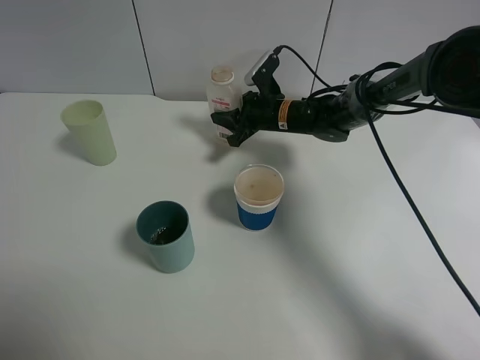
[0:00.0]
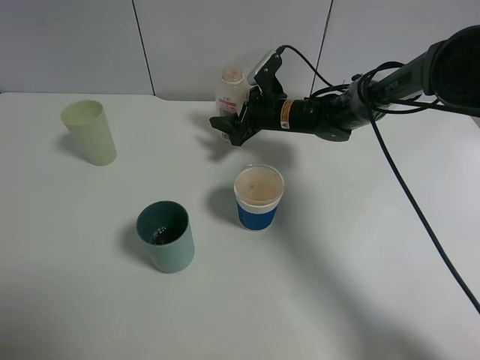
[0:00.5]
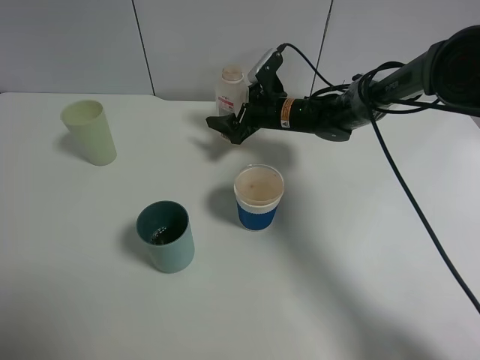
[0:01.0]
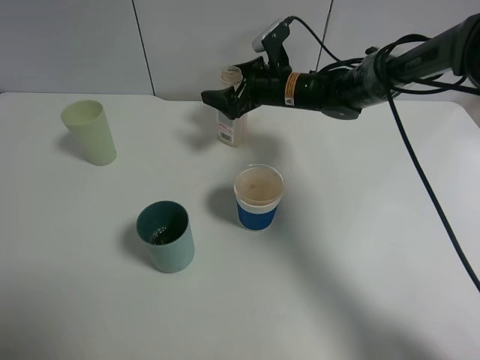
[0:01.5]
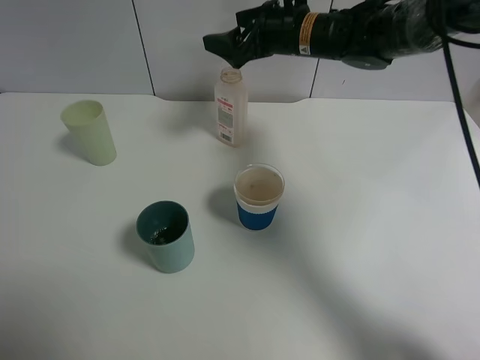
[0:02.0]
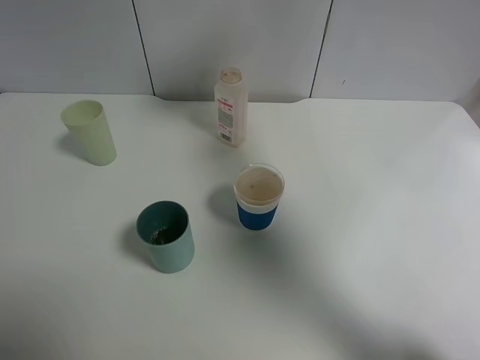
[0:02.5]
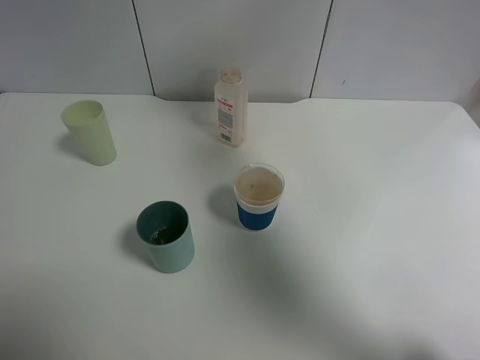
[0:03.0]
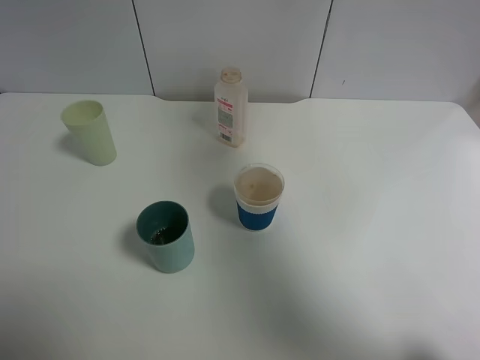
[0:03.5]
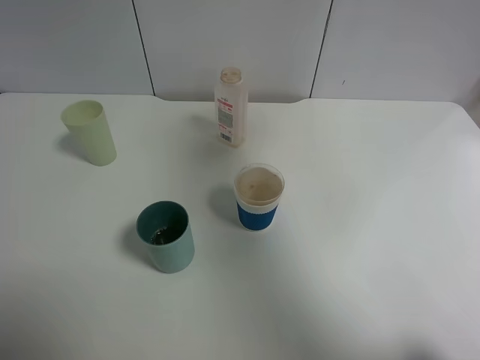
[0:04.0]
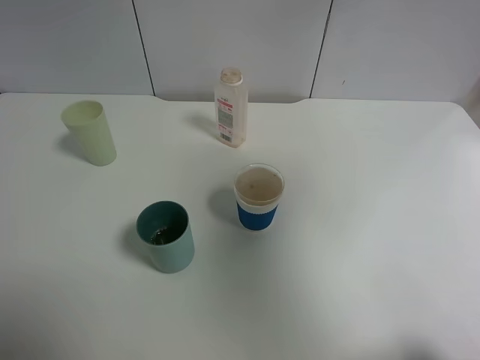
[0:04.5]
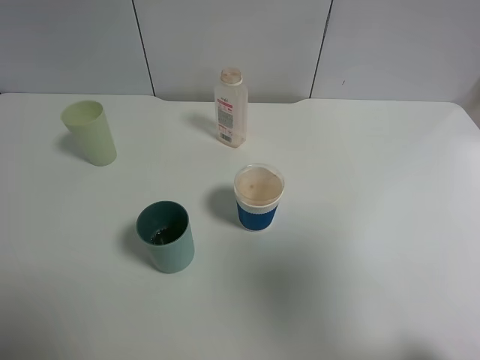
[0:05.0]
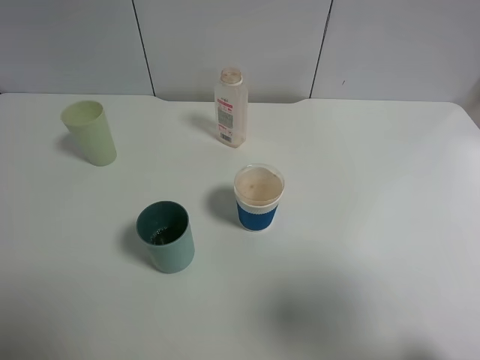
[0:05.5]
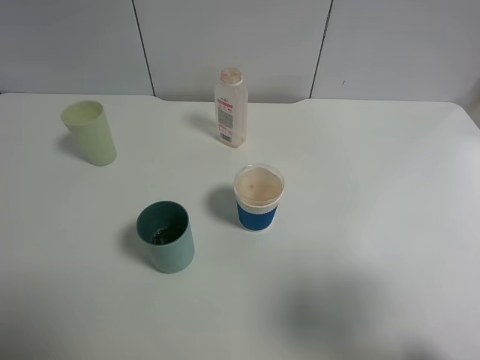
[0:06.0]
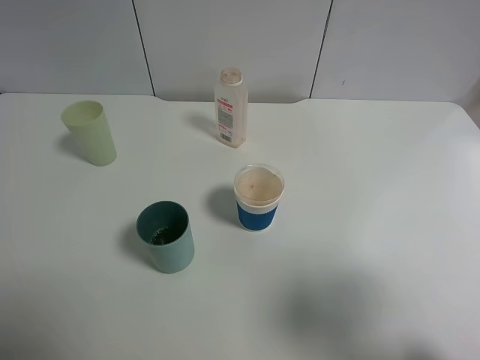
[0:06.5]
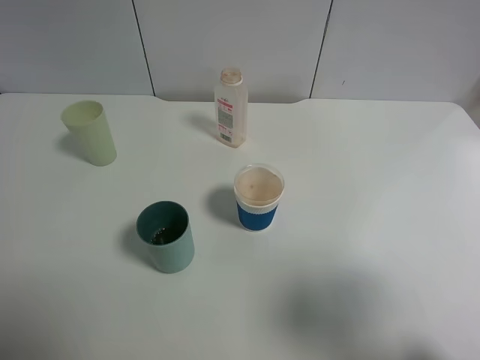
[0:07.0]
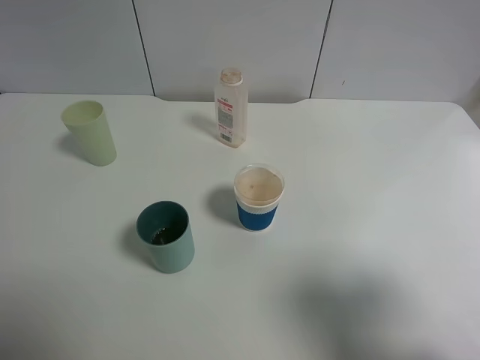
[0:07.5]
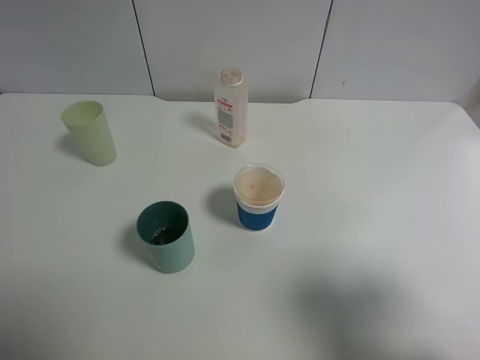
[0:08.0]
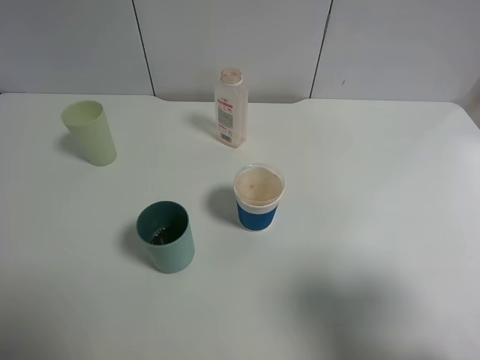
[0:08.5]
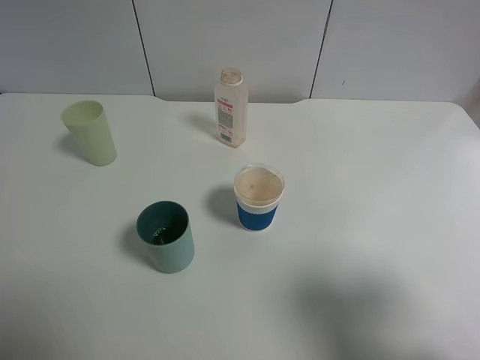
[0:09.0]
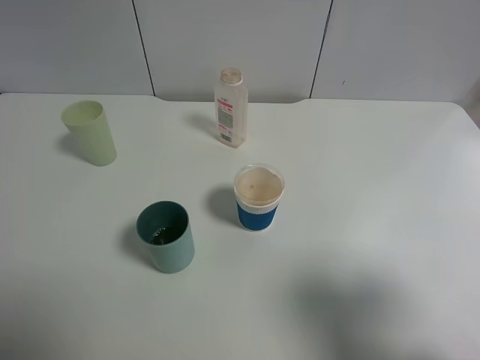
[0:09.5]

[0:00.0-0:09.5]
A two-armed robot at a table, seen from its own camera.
Task of the whole recording: use a gripper to hold the bottle of the drink and pour it into a random cup.
0:00.0 to 0:02.0: The right gripper travels upward by some 15 cm, and opens its fingers.
0:02.0 to 0:04.0: The right gripper goes some 35 cm upward, backward and to the right.
0:04.0 to 0:05.5: The right gripper goes some 30 cm backward and downward.
0:07.5 to 0:09.5: Both grippers stay about where they are.

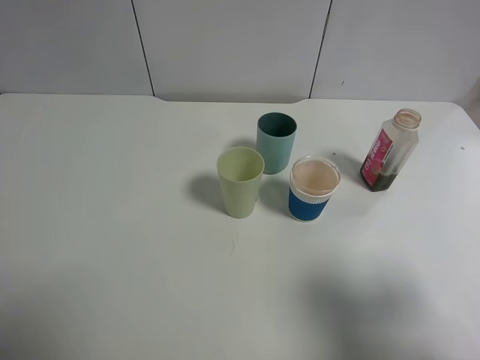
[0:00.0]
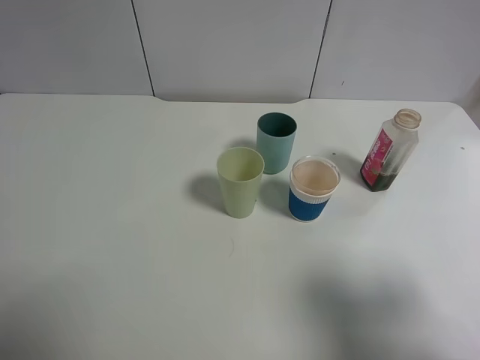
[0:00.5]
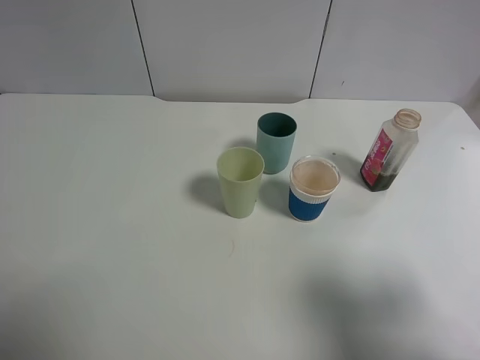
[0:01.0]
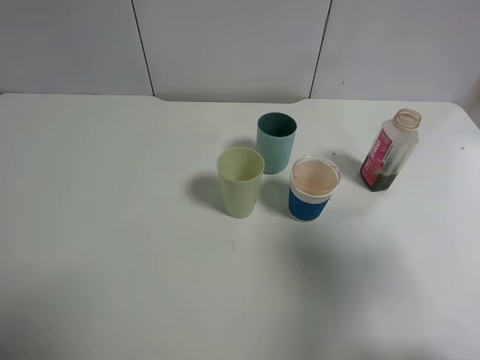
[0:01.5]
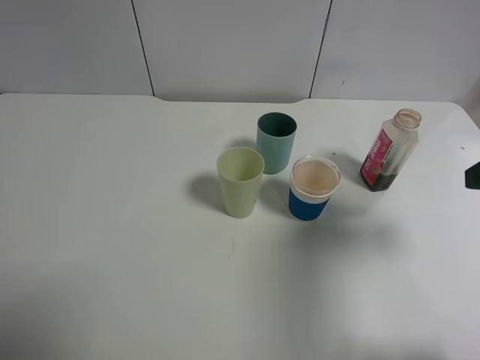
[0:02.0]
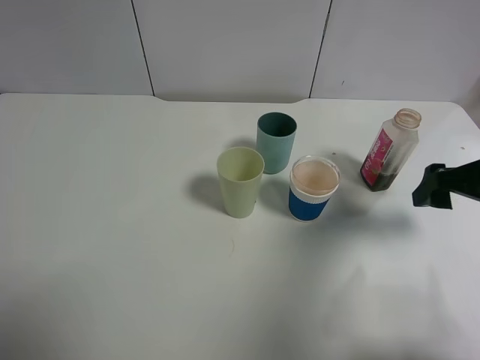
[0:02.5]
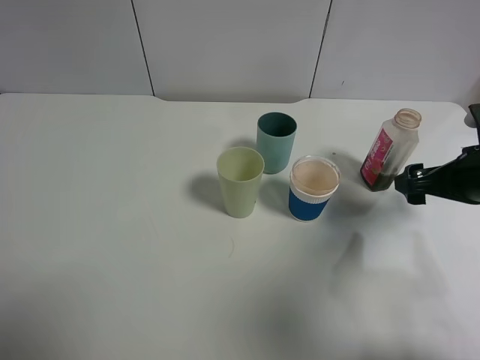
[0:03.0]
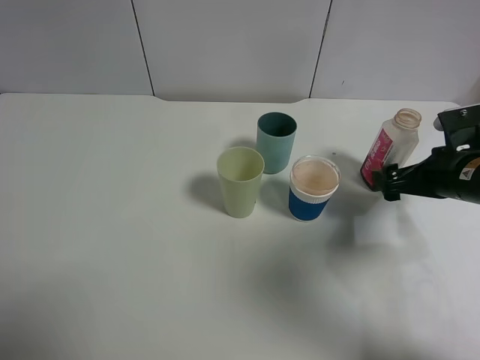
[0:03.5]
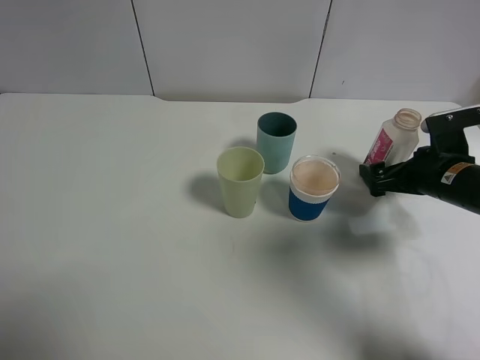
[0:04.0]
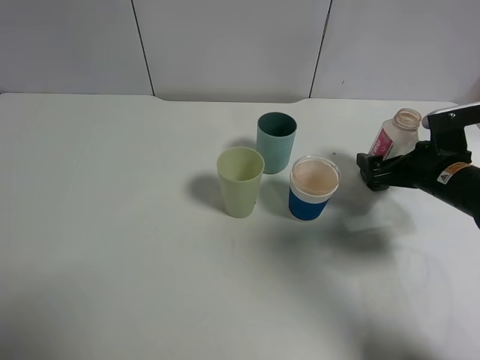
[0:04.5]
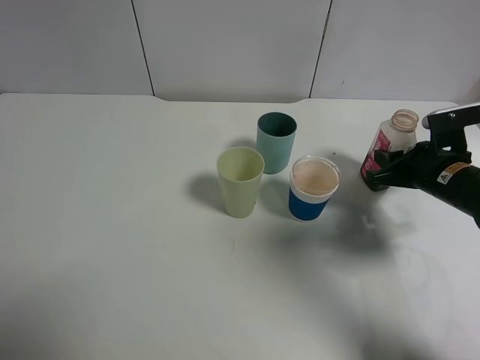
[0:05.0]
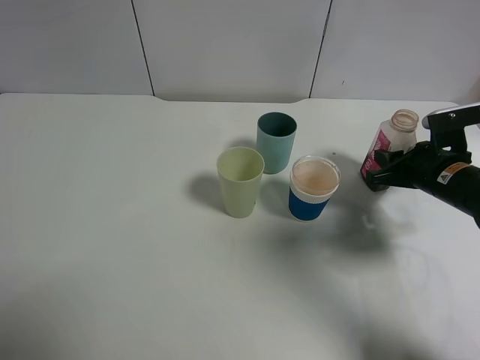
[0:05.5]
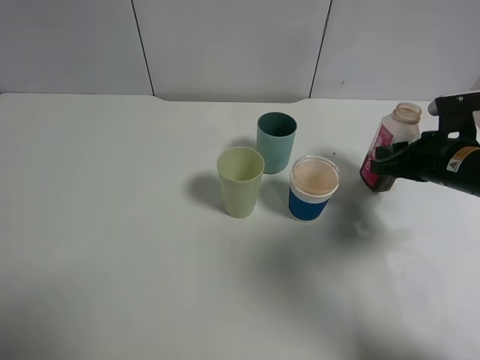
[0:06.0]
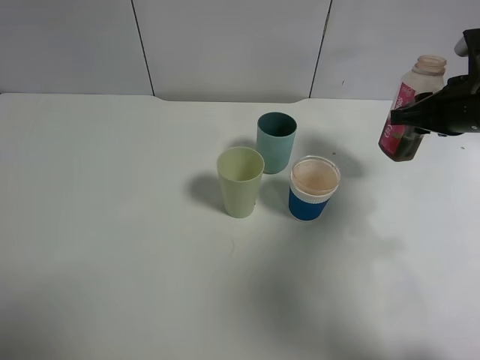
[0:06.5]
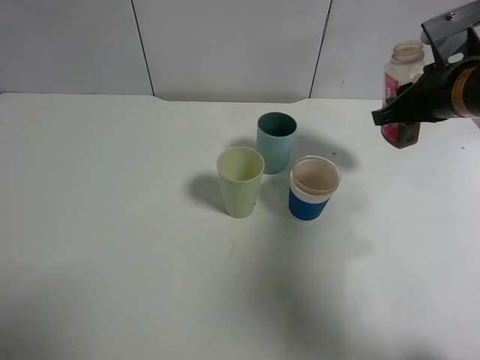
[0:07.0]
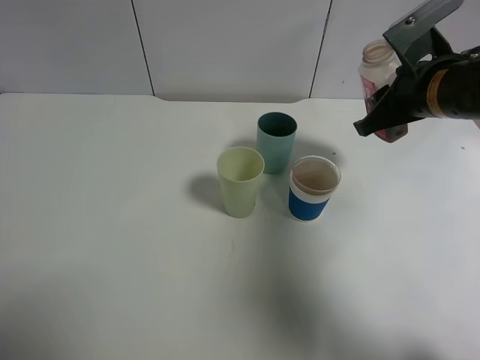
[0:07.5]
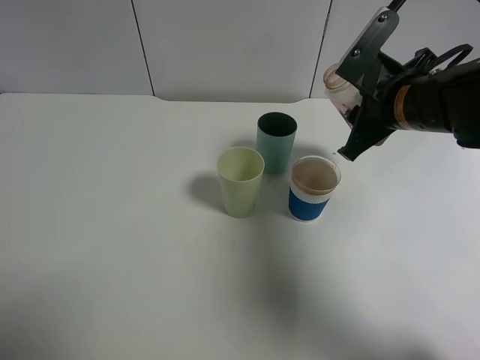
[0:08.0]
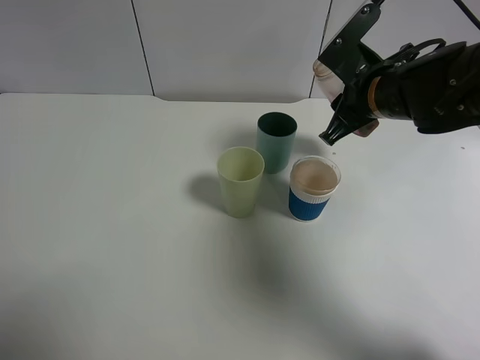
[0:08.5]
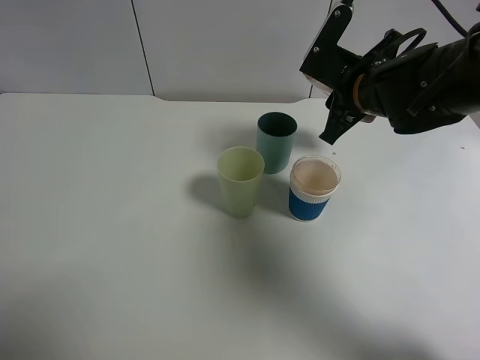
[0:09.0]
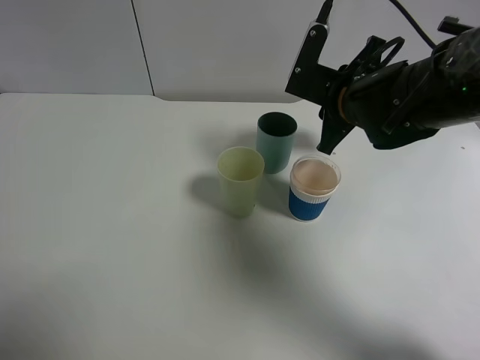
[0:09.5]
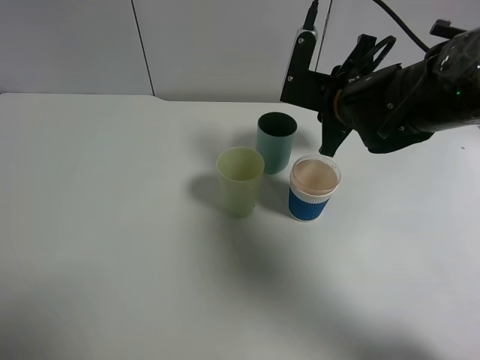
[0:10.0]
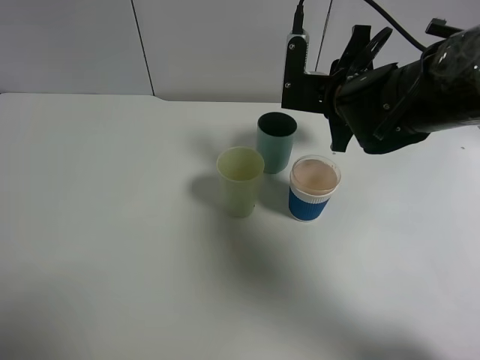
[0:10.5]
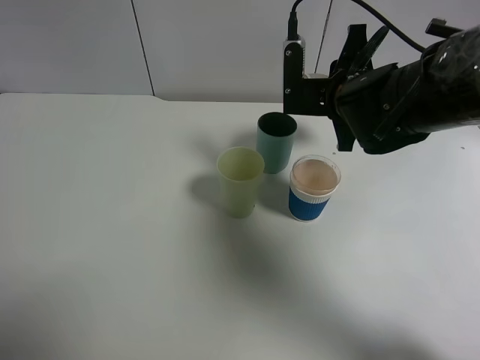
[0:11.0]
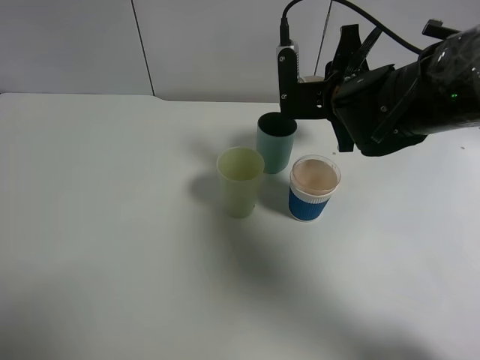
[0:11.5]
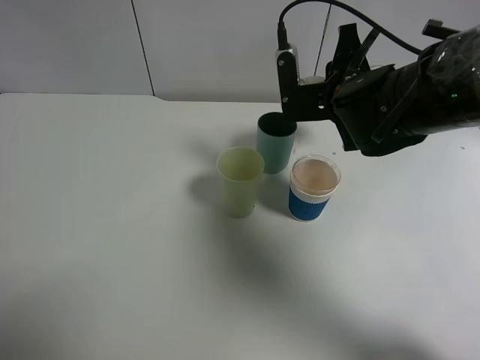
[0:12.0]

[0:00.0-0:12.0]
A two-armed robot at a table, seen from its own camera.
Task of the whole recording: use a gripper to hold the bottle of the drink and pour it into a random cup.
Step, 0:00.0 to 0:05.5: Grasp the cranberry juice bottle with the right gripper.
0:00.0 to 0:02.0: The right gripper is displaced forward by about 15 cm.
0:02.0 to 0:04.0: The right gripper heads downward and forward, covering some 20 cm.
0:04.0 to 0:06.0: The right gripper closes up.
0:06.0 to 0:08.0: The right gripper travels to the left and upward by approximately 10 cm.
0:08.0 to 0:10.0: The right gripper is displaced to the left by roughly 5 cm.

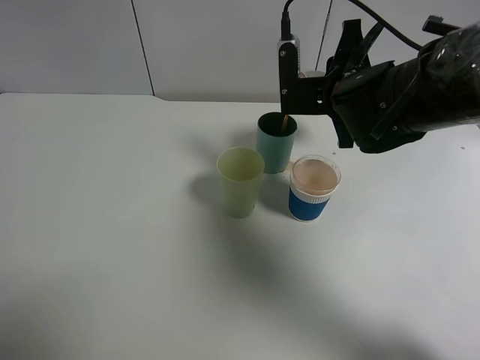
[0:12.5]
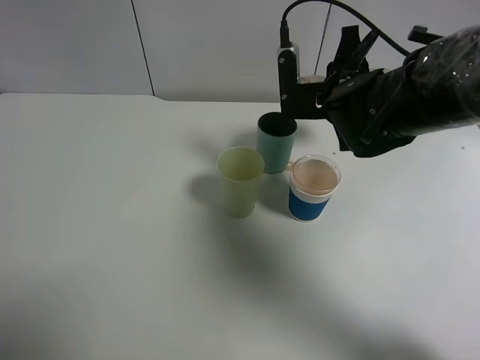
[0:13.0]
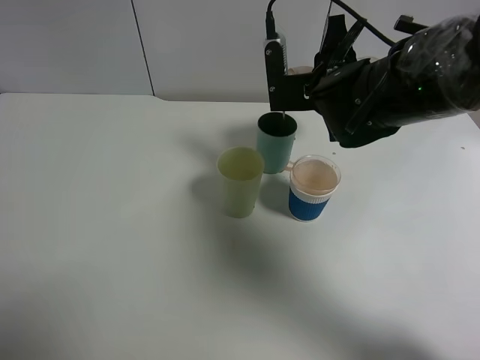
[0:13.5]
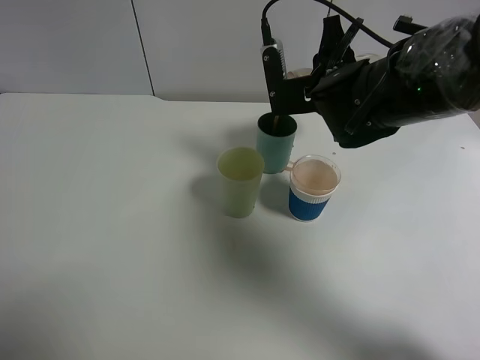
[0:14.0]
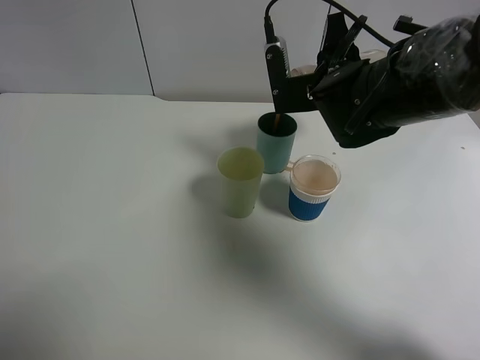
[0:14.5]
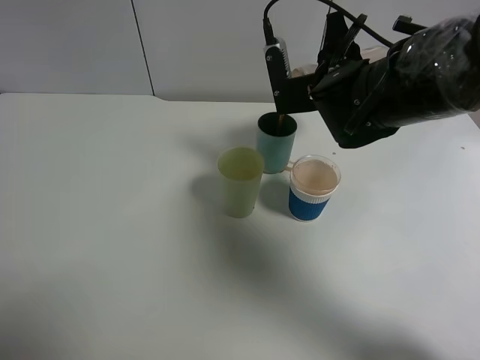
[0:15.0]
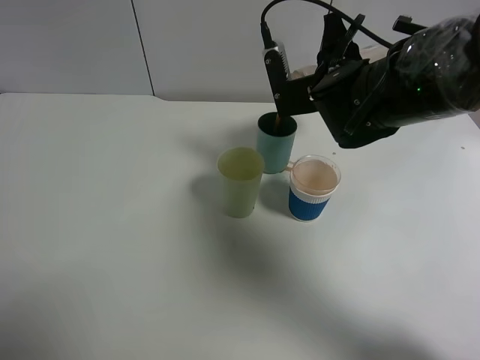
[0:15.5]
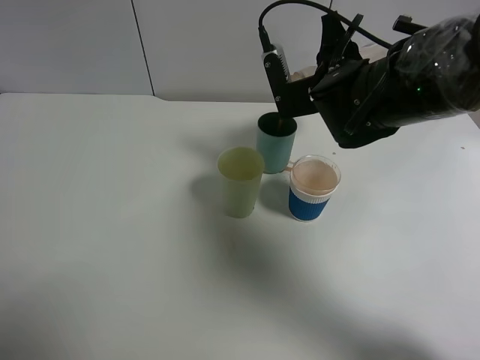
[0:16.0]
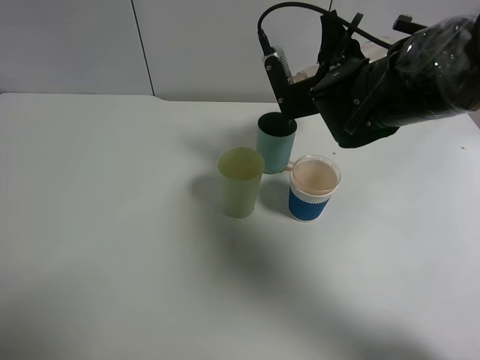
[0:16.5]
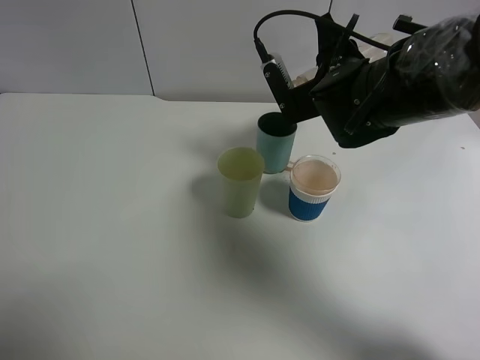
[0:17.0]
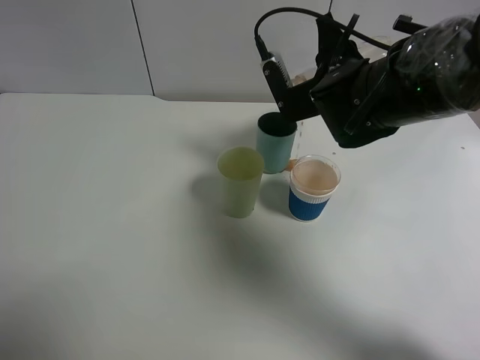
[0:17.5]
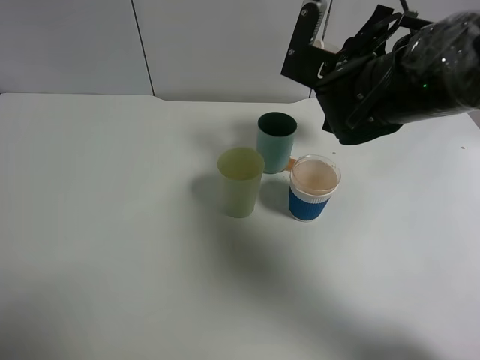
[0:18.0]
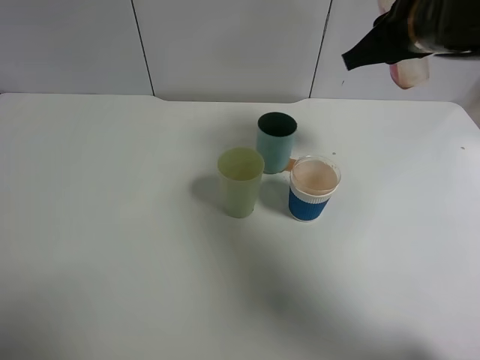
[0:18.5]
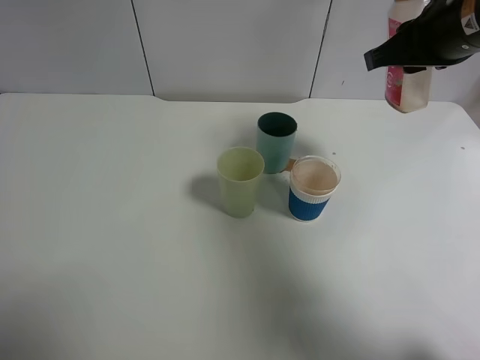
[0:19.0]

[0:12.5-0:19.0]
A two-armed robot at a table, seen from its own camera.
Task of the whole recording: use a gripper to hold the bottle of the drink and pour it into a random cup.
Step, 0:12.5 to 0:17.5: Pour the cranberry juice into the cyan cup with the right gripper.
0:12.5 to 0:14.5: There are only small adjustments of the grippers.
0:14.5 to 0:17.0: The grippers move only a little.
0:17.0 to 0:19.0: The right gripper travels upward and to the right by about 15 cm.
